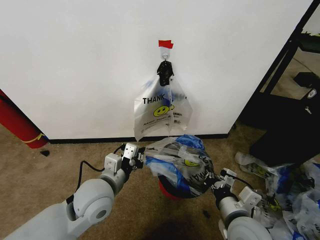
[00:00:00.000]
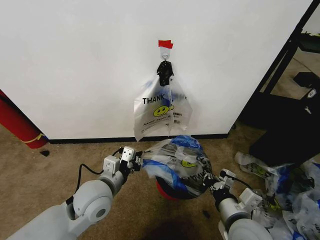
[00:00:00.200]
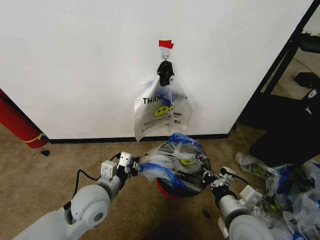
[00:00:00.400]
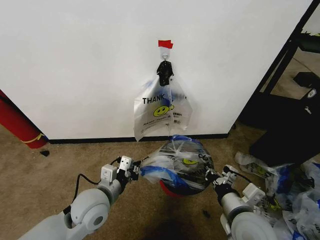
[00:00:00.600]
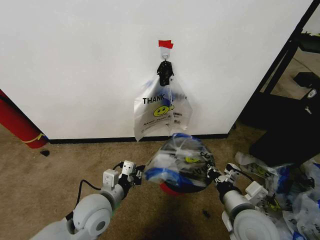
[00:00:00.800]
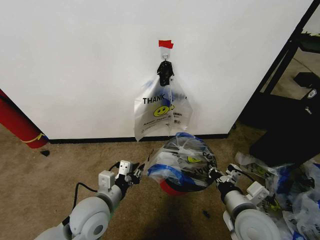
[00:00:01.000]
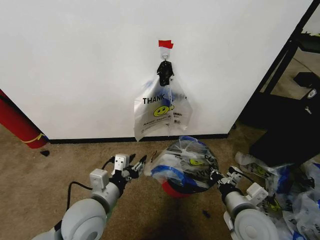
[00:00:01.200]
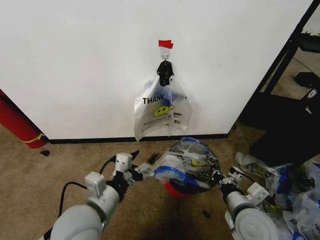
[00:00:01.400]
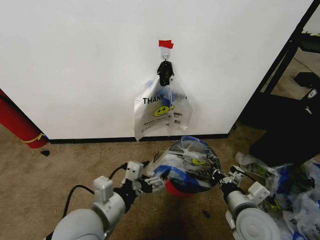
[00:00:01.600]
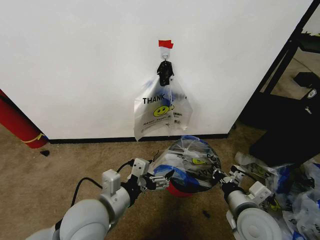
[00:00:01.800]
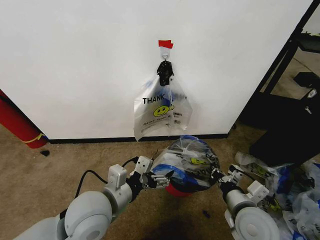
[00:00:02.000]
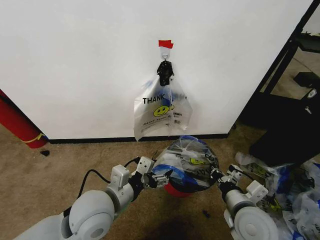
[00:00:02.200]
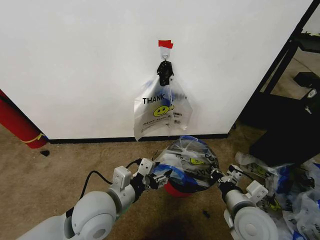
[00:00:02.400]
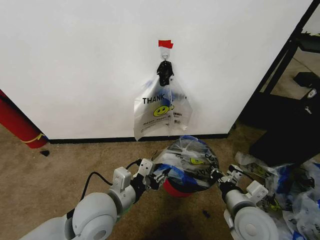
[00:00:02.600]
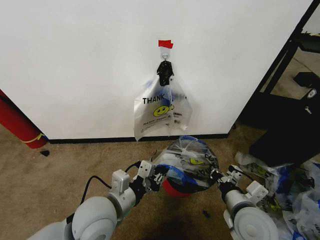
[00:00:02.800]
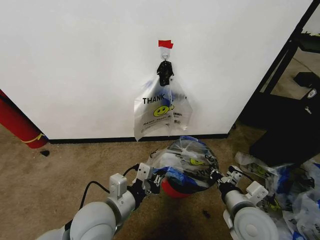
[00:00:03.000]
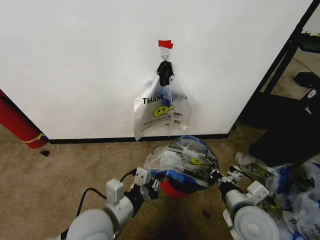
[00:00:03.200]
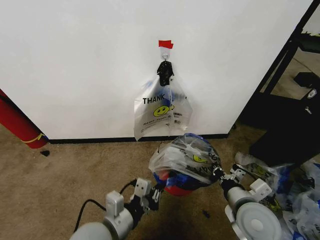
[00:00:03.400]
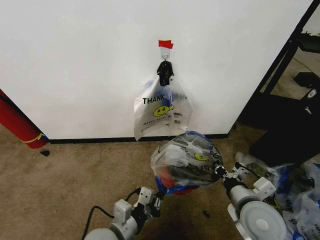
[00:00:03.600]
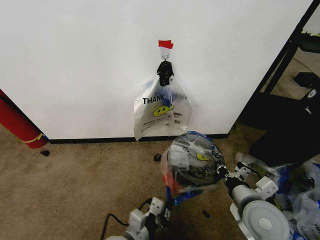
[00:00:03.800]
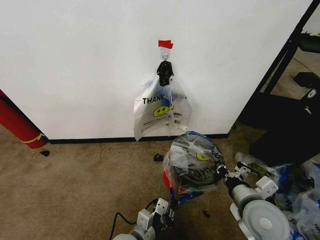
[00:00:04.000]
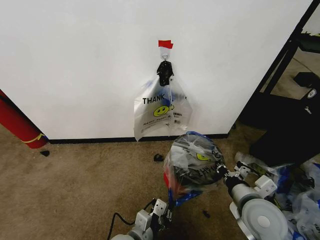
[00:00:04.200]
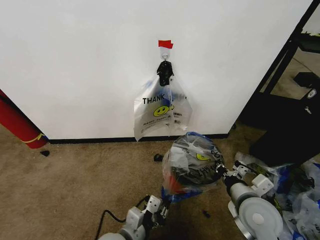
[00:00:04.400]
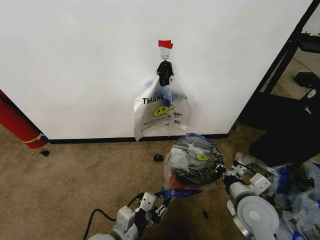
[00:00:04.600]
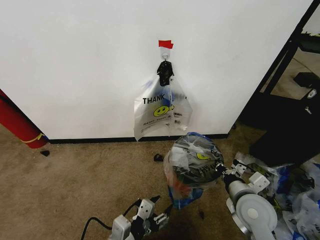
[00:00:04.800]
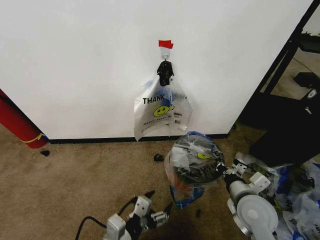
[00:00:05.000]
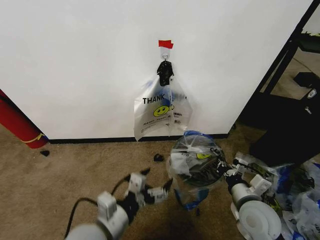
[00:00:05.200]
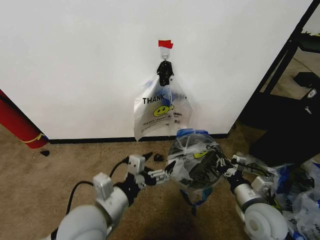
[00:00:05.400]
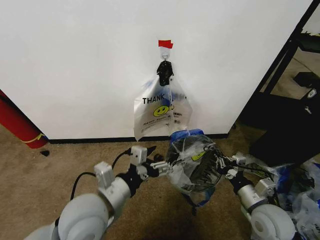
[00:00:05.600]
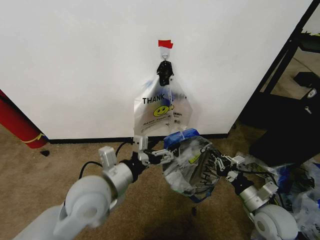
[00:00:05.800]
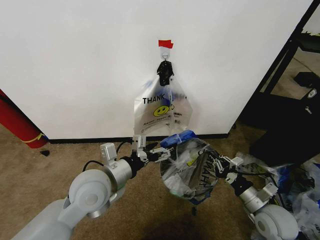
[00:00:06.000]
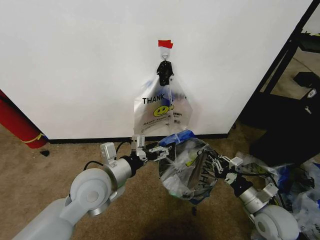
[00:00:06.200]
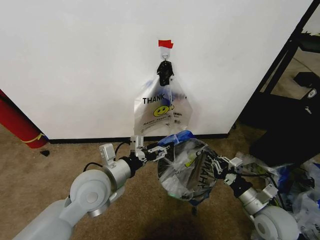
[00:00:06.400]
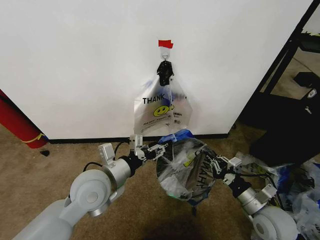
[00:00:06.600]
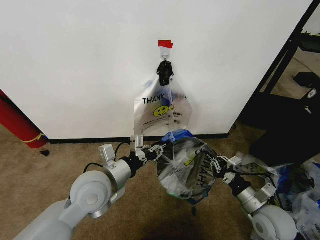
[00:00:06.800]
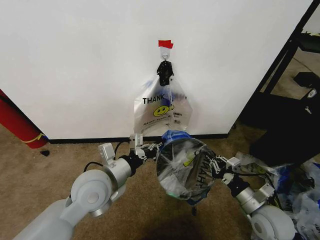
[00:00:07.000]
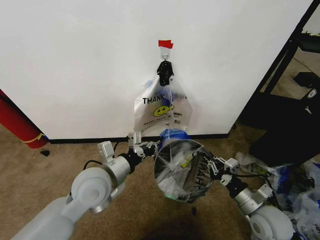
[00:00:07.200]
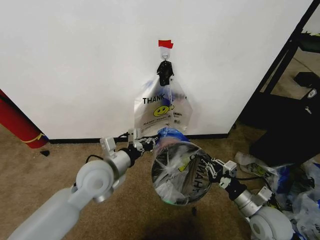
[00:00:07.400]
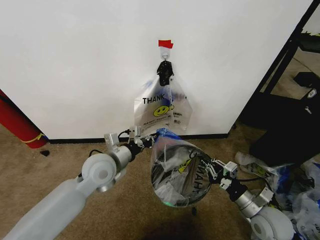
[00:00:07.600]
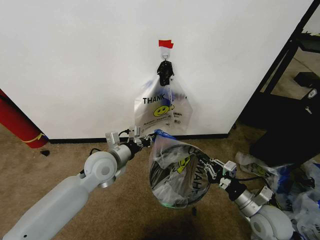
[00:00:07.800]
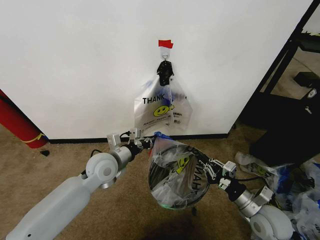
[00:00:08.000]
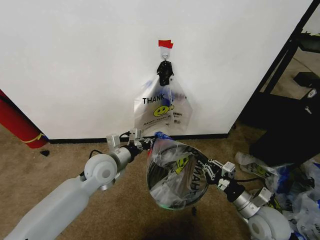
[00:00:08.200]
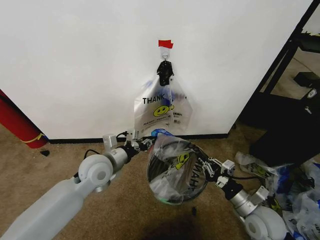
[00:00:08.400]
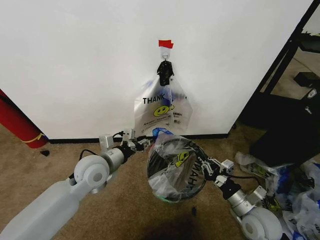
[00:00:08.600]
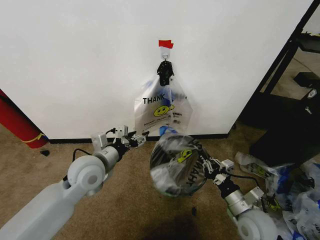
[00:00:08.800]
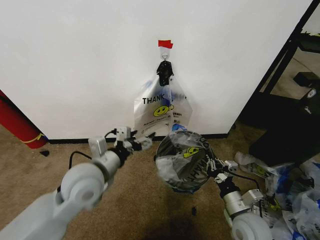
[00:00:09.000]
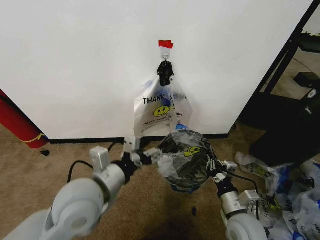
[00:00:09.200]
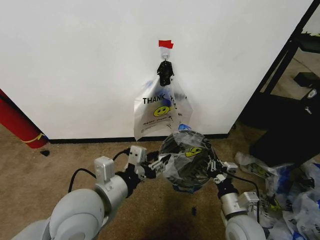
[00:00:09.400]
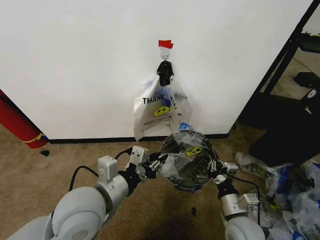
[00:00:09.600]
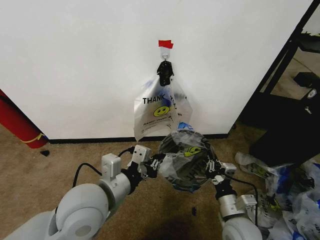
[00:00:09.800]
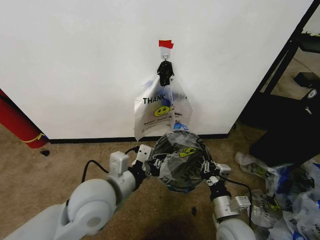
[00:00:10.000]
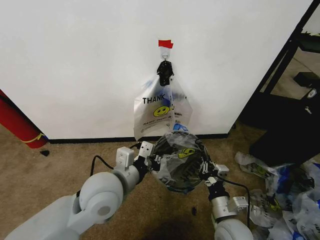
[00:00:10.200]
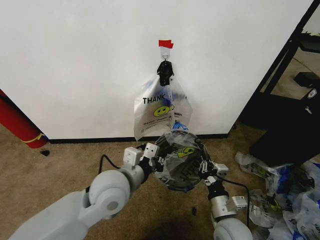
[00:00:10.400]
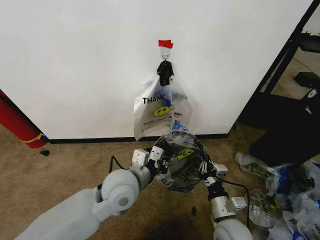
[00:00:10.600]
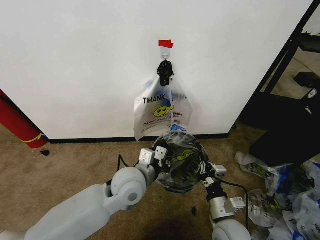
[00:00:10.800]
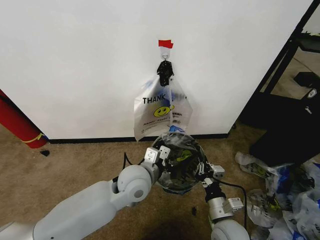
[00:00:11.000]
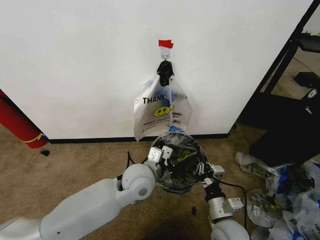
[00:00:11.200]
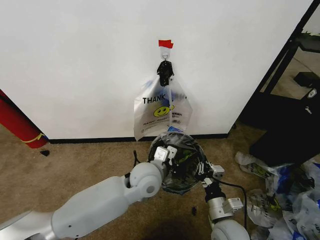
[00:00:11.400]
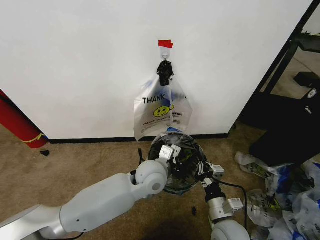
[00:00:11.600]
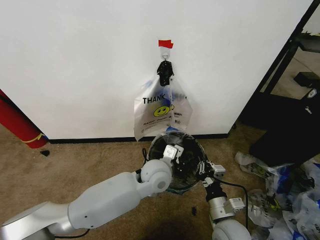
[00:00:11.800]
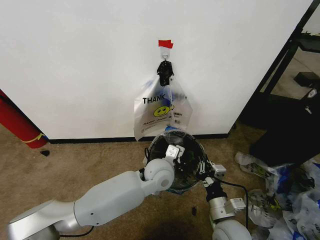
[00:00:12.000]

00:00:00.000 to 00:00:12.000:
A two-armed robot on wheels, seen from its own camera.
Task of the whole recording: Pick up the garbage bag from the wall and place it over the trash bin.
00:00:00.000 to 00:00:01.600: The left gripper shifts approximately 10 cm backward, and opens.
00:00:01.600 to 00:00:03.000: The left gripper closes.
00:00:03.000 to 00:00:04.400: The left gripper goes approximately 10 cm downward.
00:00:04.400 to 00:00:06.000: The left gripper moves upward and forward, some 20 cm, and opens its fingers. Meanwhile the right gripper is displaced to the right and downward by about 10 cm.
00:00:06.000 to 00:00:07.600: The left gripper goes some 5 cm forward, and closes up.
00:00:07.600 to 00:00:09.000: The right gripper travels to the left by roughly 5 cm; the left gripper heads backward, covering roughly 5 cm, and opens up.
00:00:09.000 to 00:00:10.400: The left gripper heads to the right, covering approximately 5 cm, moves about 10 cm backward and comes back, and closes, while the right gripper is displaced to the left by approximately 5 cm.
00:00:10.400 to 00:00:12.000: The left gripper goes roughly 15 cm to the right, forward and downward.

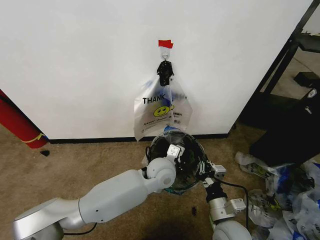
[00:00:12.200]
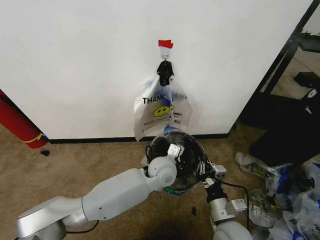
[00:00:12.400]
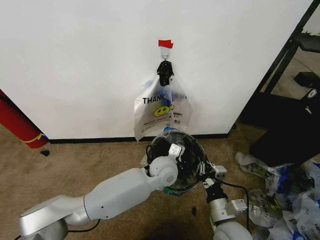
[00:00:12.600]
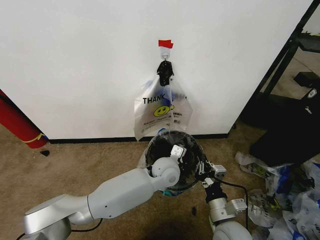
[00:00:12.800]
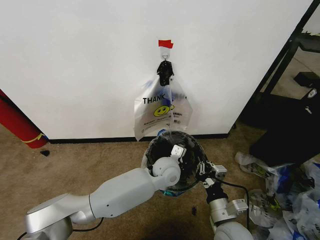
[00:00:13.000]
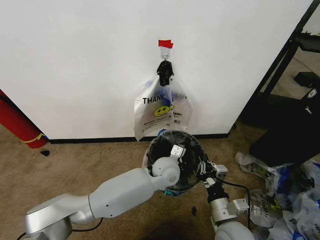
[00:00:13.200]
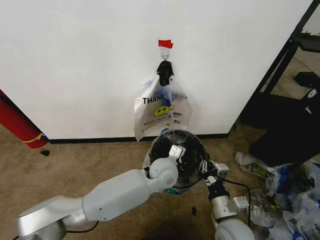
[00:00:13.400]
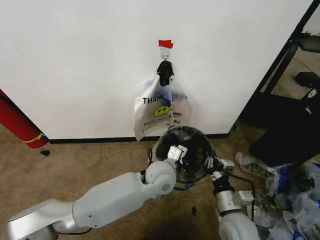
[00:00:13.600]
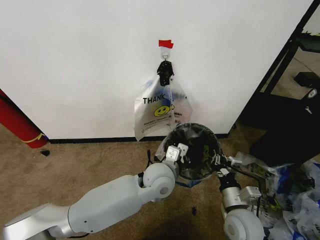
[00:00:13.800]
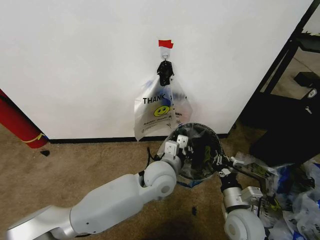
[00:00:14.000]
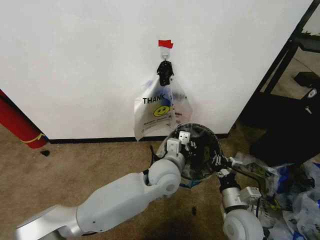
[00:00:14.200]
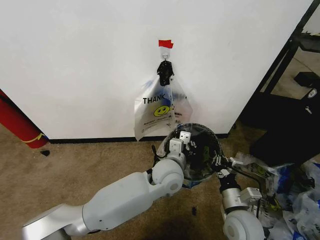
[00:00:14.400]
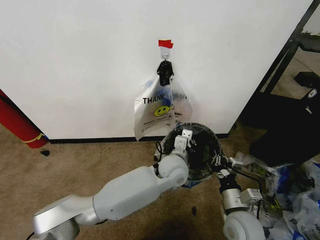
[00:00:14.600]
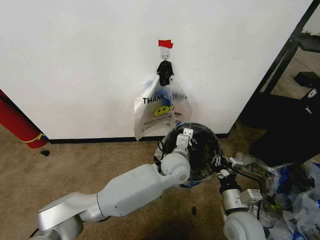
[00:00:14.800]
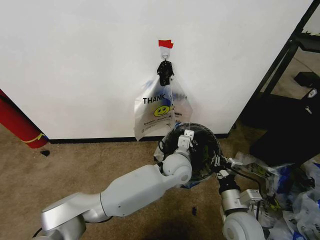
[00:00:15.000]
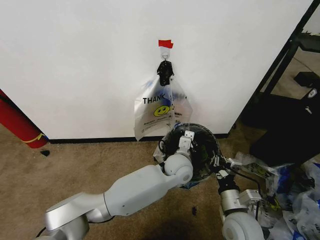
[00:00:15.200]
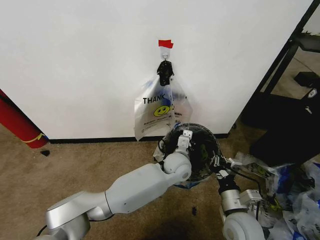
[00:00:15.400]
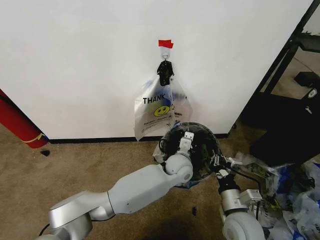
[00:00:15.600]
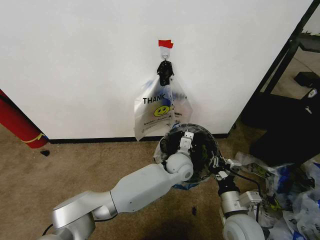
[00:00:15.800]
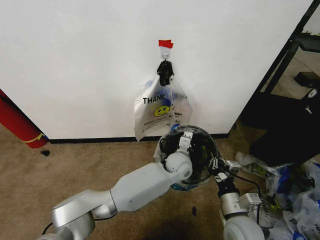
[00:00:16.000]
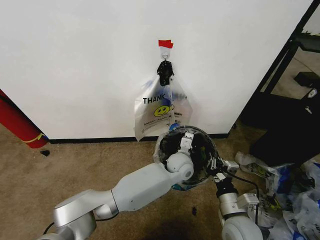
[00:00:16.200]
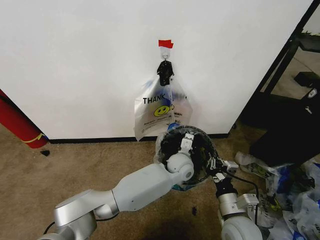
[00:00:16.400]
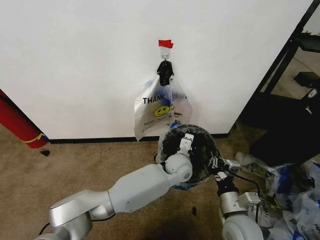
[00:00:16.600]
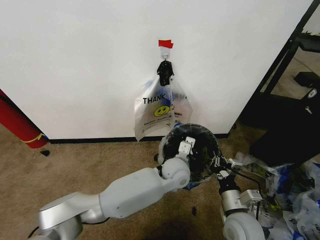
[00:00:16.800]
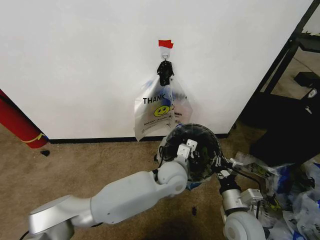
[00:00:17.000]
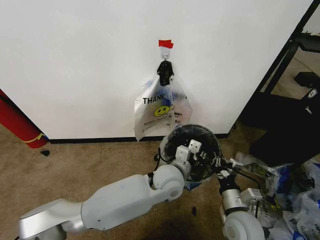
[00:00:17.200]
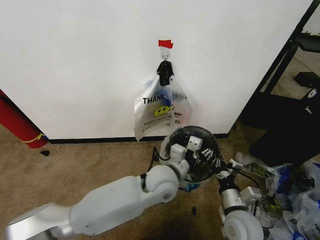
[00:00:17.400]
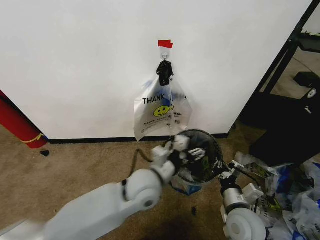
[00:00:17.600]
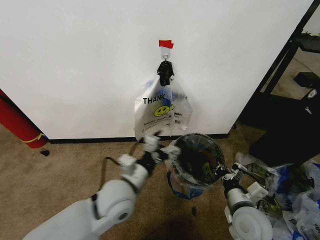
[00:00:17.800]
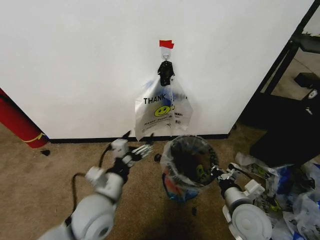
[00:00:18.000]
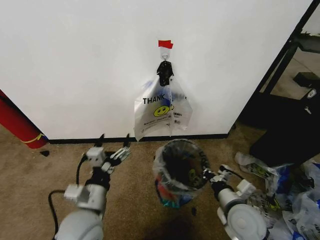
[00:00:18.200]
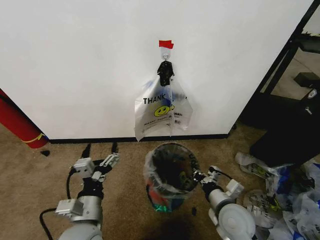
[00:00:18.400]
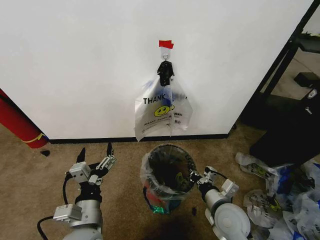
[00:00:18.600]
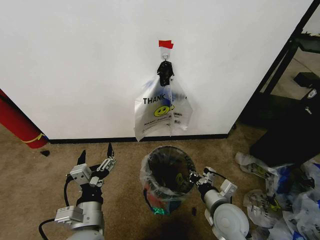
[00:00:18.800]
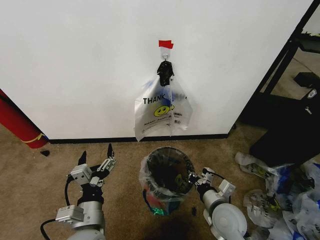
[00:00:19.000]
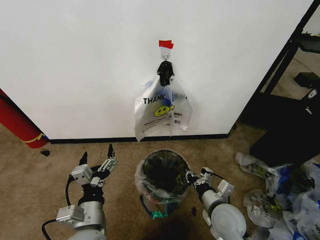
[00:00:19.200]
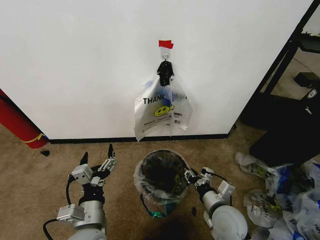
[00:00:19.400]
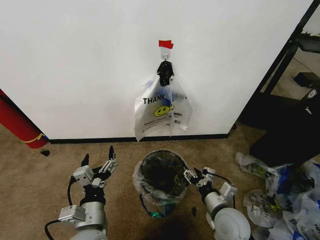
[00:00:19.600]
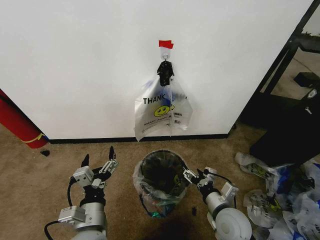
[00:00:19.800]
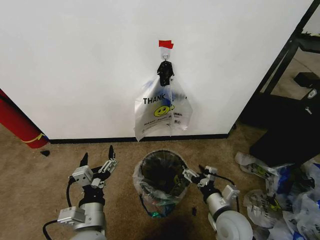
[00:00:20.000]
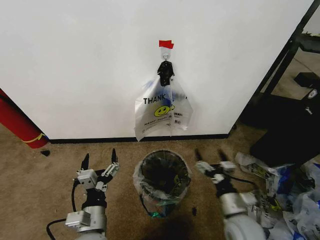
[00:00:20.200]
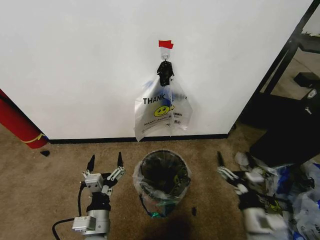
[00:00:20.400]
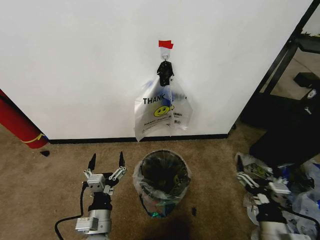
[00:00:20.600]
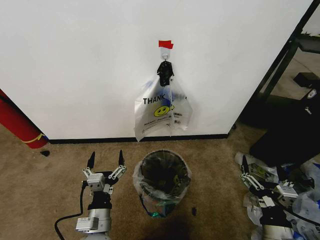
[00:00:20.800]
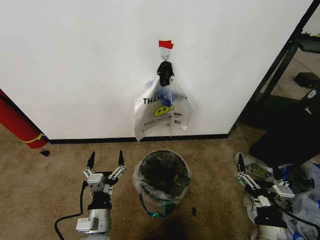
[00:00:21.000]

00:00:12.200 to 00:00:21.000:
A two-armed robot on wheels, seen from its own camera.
Task of the whole recording: Pick up the garbage bag from the wall and place it over the trash bin.
00:00:12.200 to 00:00:13.600: The grippers move only a little.
00:00:13.600 to 00:00:15.200: The left gripper shifts roughly 5 cm to the right.
00:00:15.200 to 00:00:16.600: There are only small adjustments of the grippers.
00:00:16.600 to 00:00:18.000: The left gripper is displaced to the left and backward by about 30 cm, and opens up.
00:00:18.000 to 00:00:19.600: The left gripper heads backward, covering about 5 cm, while the right gripper ends up roughly 5 cm from where it was, and opens up.
00:00:19.600 to 00:00:21.000: The right gripper shifts approximately 15 cm backward and to the right; the left gripper heads downward, covering approximately 5 cm.
